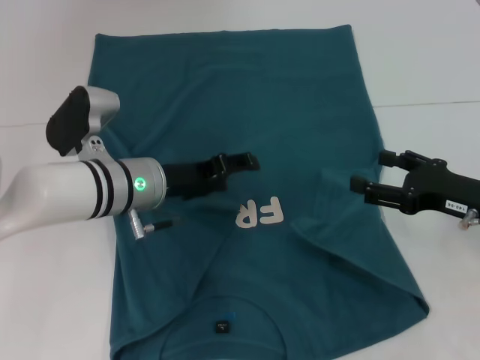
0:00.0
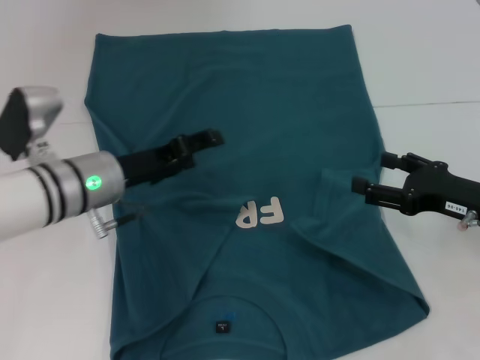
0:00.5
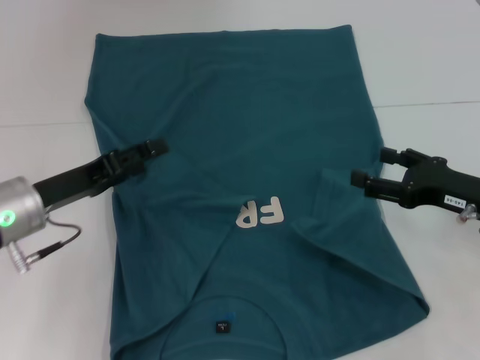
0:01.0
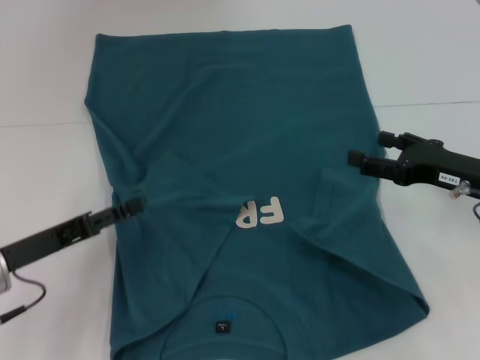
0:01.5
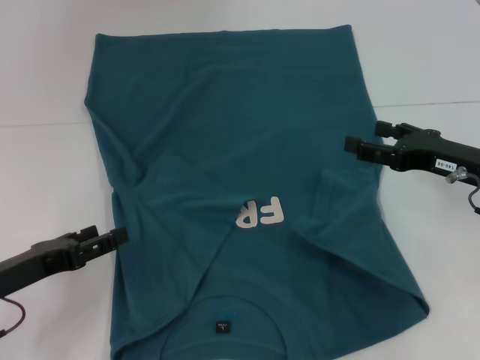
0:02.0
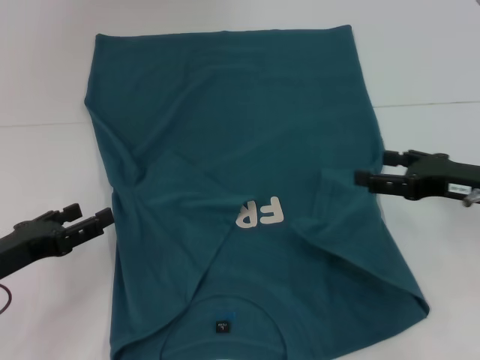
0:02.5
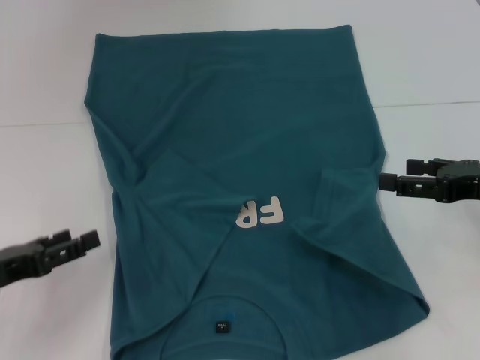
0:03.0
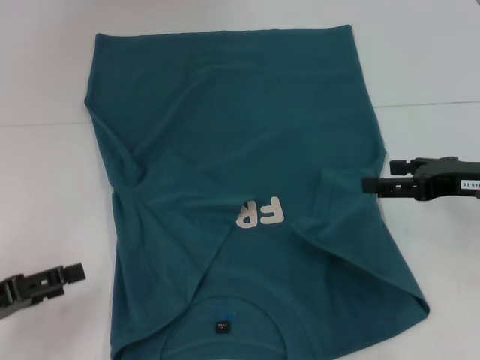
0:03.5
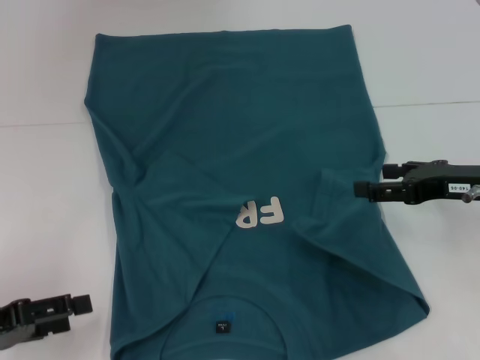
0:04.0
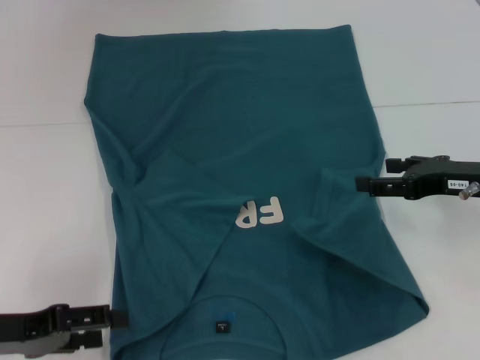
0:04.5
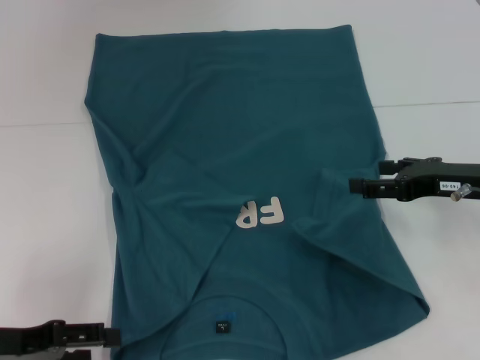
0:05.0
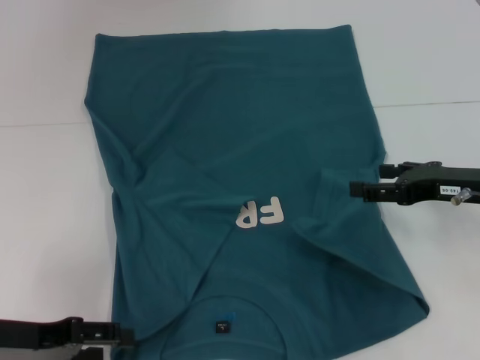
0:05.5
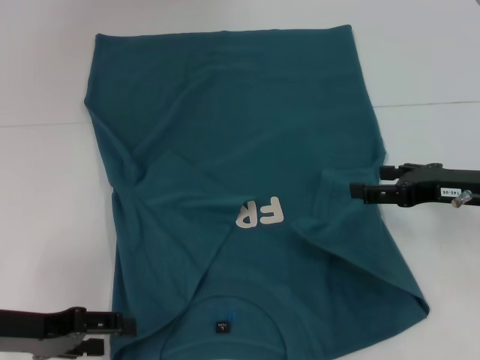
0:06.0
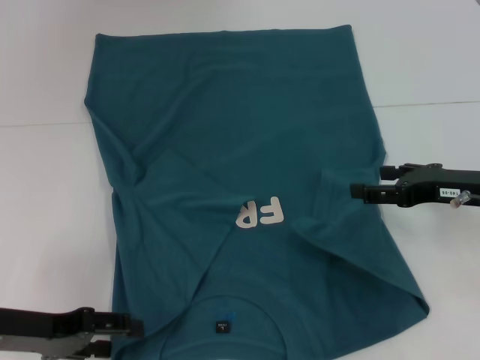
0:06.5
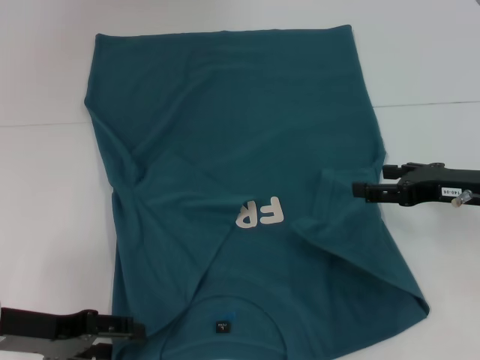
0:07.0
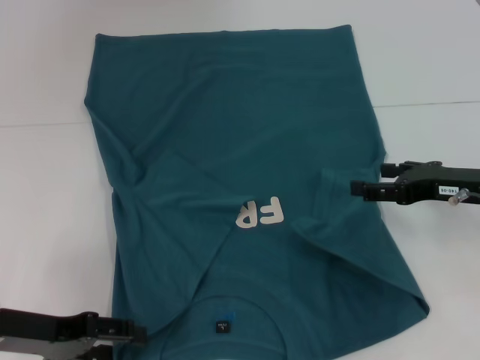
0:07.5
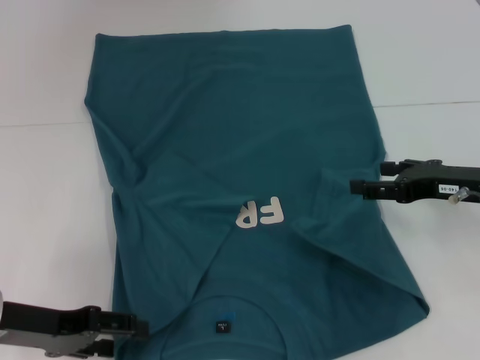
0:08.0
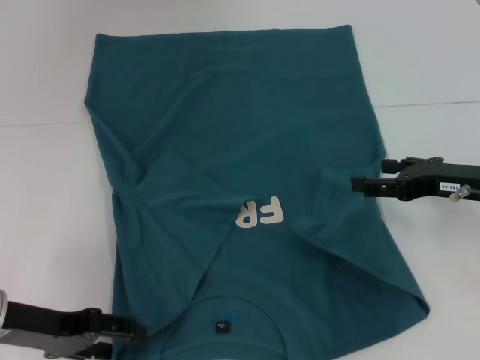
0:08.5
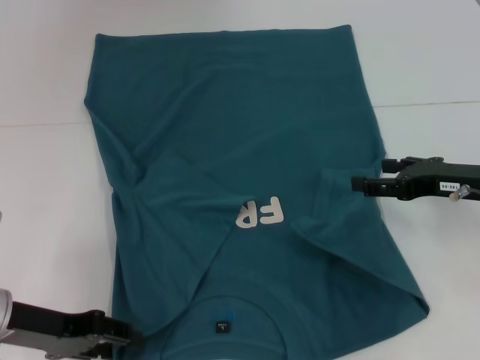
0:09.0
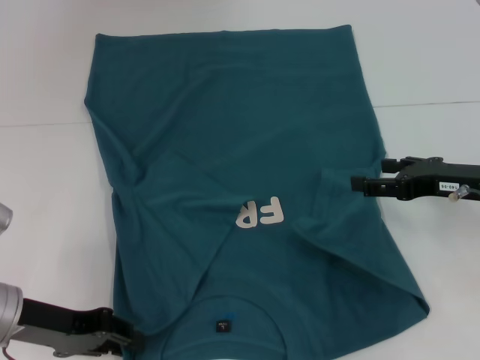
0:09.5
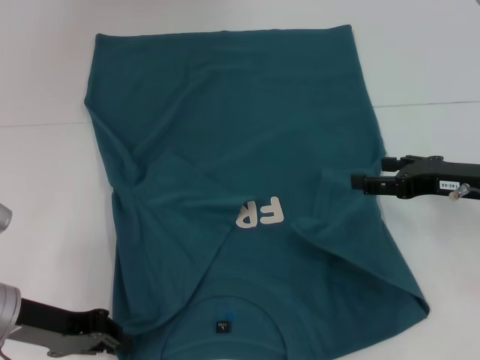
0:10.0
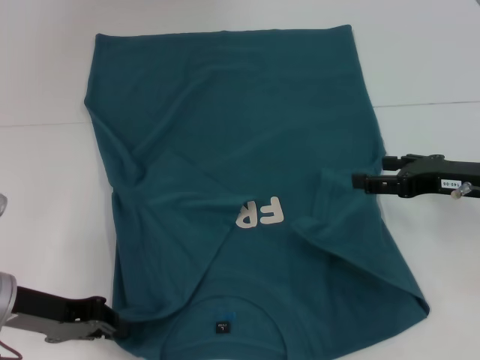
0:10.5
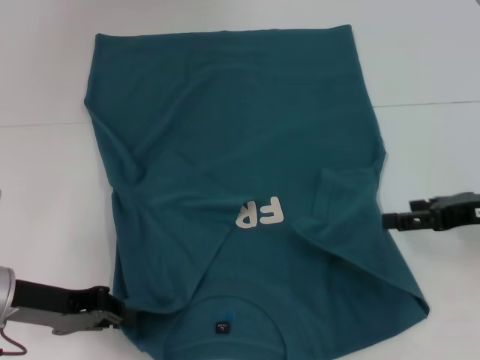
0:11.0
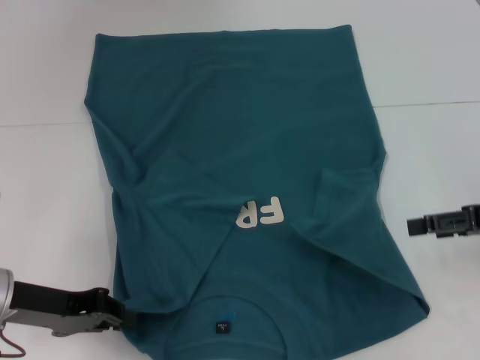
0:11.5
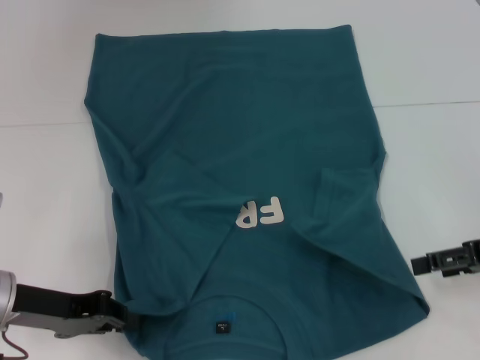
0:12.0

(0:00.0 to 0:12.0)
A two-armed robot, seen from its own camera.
Step, 0:01.0 - 0:10.0: Grab the bottom left corner with your left hand.
0:00.0 - 0:02.0: The left gripper goes approximately 20 cm to the left and backward.
0:02.0 - 0:04.0: The left gripper ends up about 5 cm from where it was.
0:04.0 - 0:06.0: The left gripper is displaced to the right by approximately 5 cm.
0:06.0 - 0:08.0: There are only small adjustments of the grippers.
0:08.0 - 0:10.0: The left gripper closes.
0:10.0 - 0:12.0: The right gripper shifts by some 5 cm.

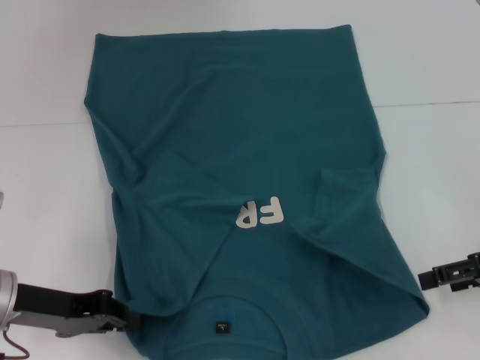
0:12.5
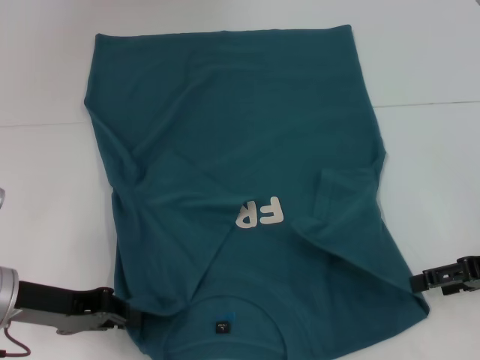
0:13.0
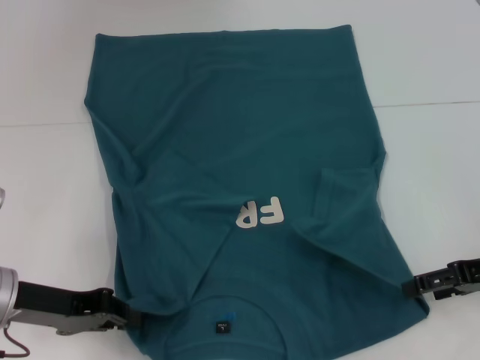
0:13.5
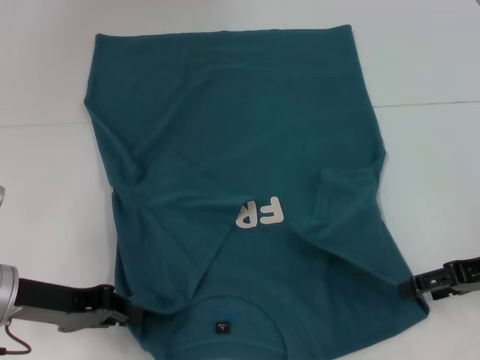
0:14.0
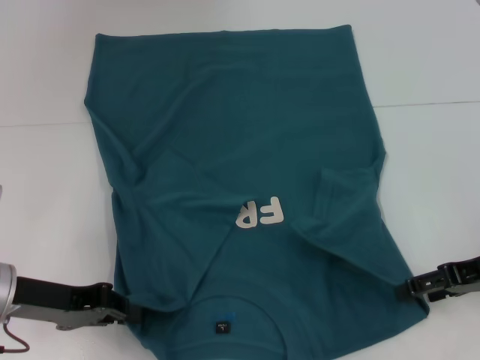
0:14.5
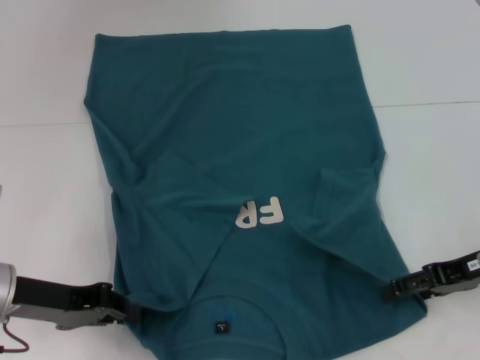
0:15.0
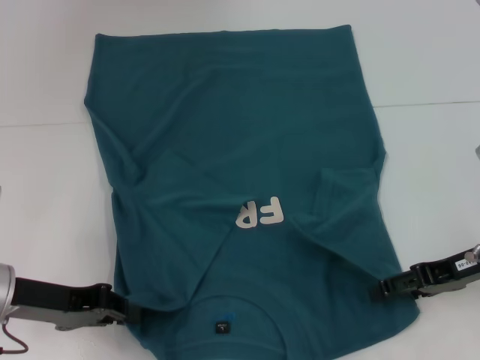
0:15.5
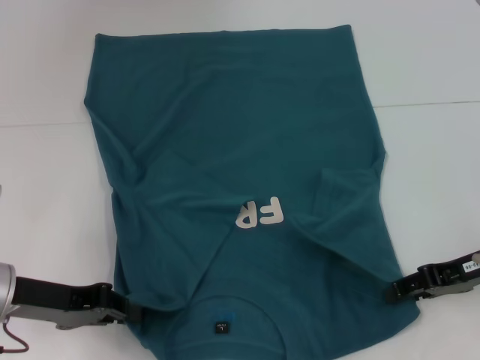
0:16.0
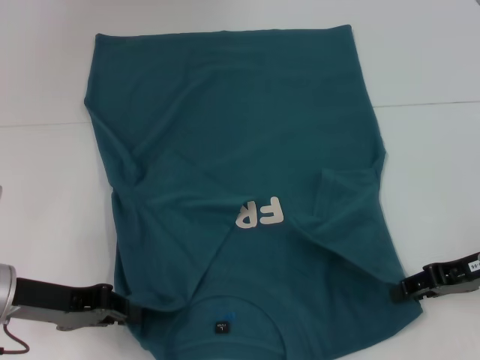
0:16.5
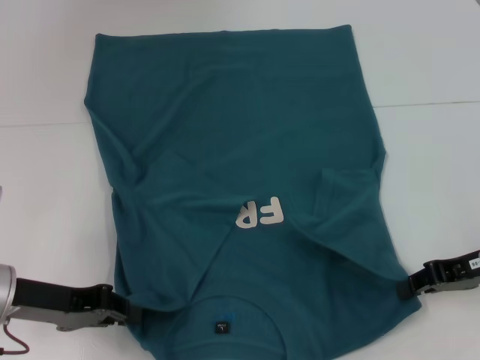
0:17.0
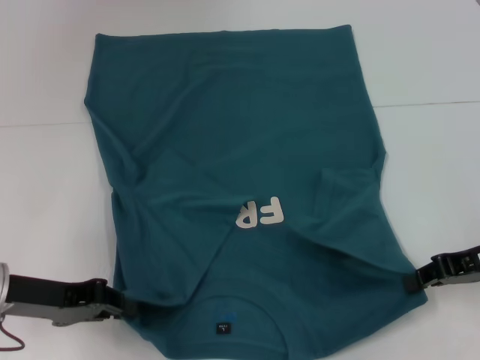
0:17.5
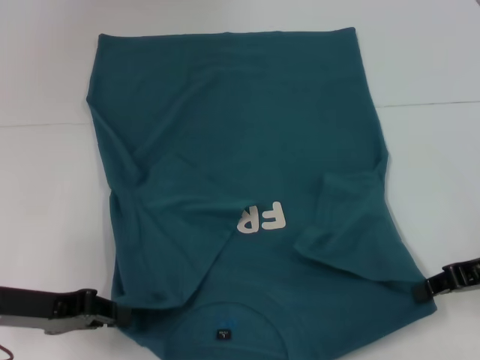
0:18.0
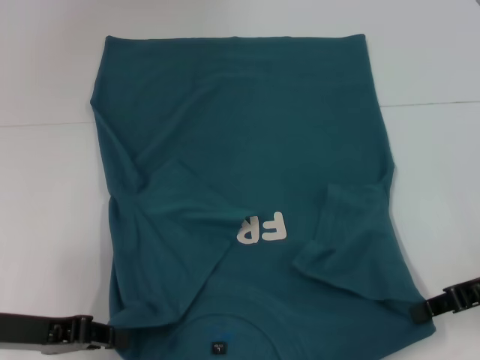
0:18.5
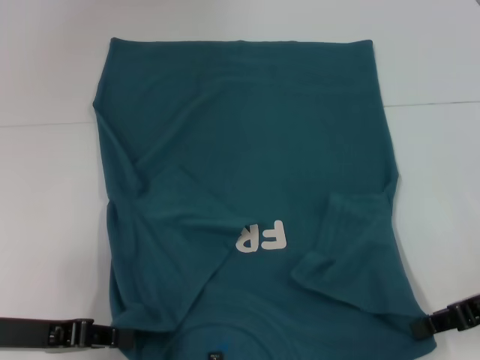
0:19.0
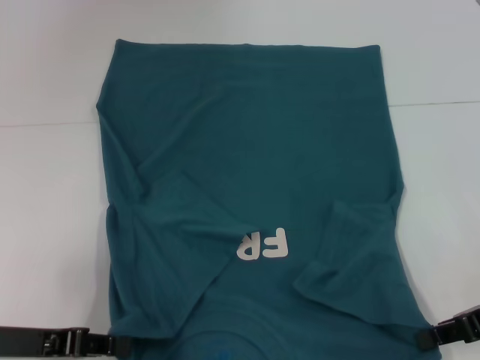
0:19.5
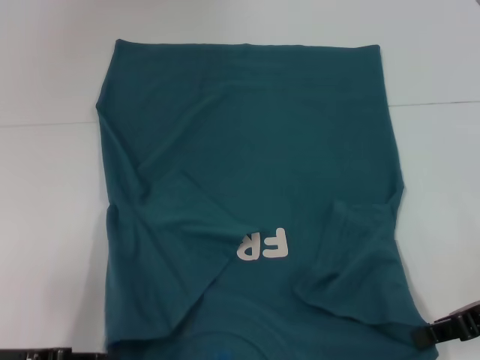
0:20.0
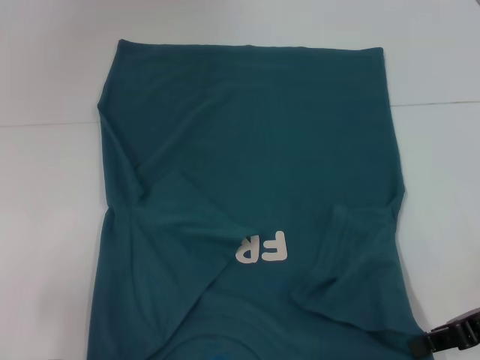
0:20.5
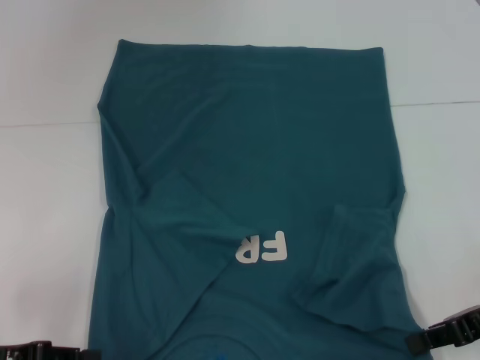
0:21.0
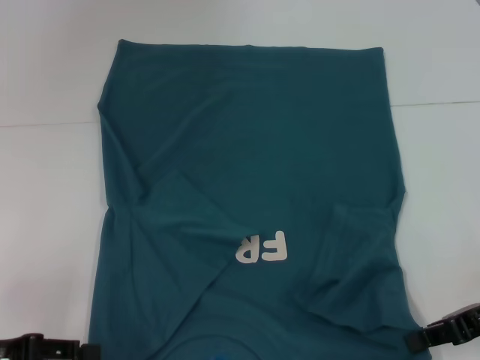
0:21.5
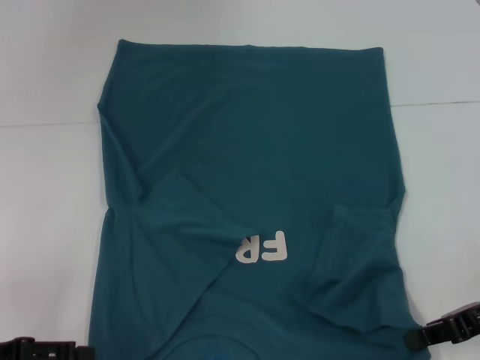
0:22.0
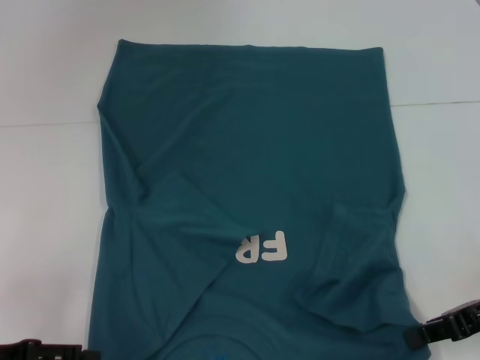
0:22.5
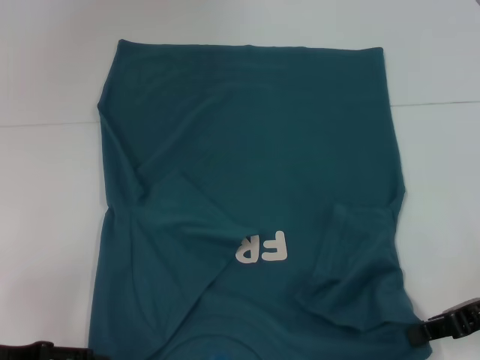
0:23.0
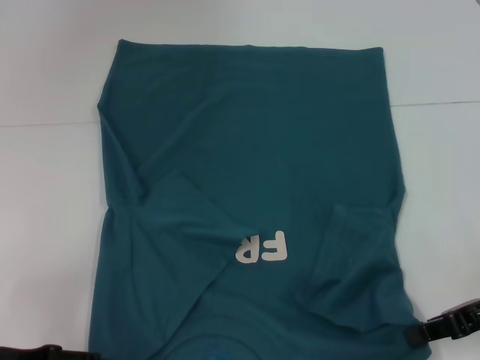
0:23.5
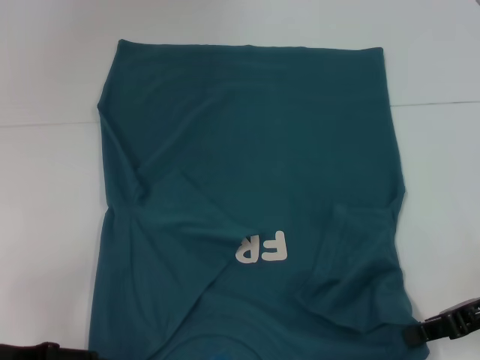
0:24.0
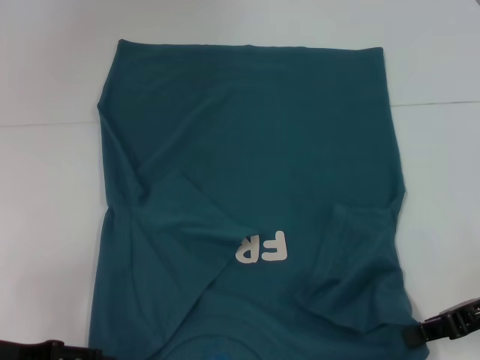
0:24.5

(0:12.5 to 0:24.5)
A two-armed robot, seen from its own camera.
Step, 0:12.5 - 0:17.0: Grab the bottom right corner with your right hand.
0:12.5 - 0:14.5: The grippers move only a little.
0:14.5 - 0:16.5: The right gripper closes up.
0:16.5 - 0:18.5: The right gripper closes.
0:18.5 - 0:20.5: The left gripper shifts by some 5 cm.
0:20.5 - 0:22.5: The left gripper opens its fingers.

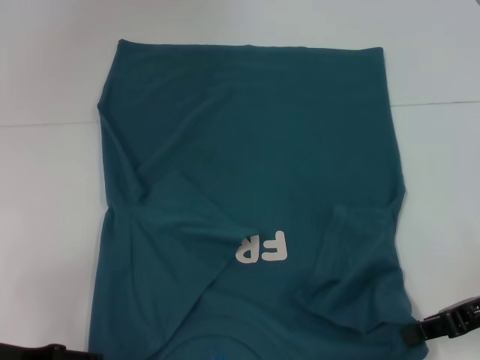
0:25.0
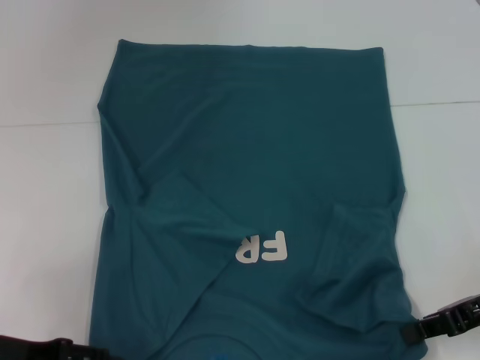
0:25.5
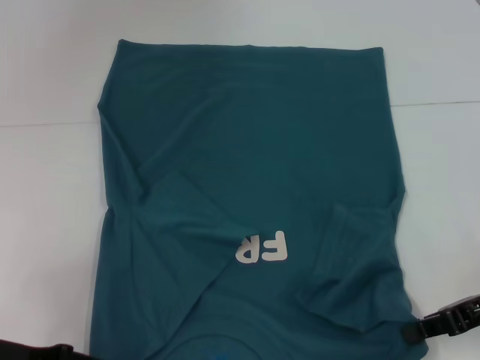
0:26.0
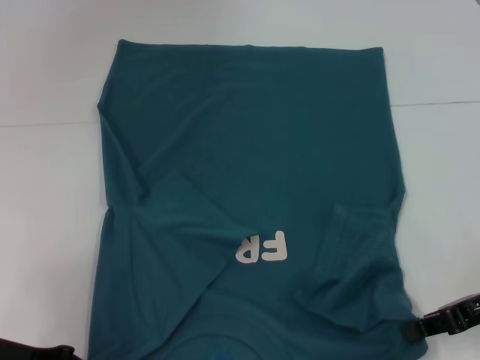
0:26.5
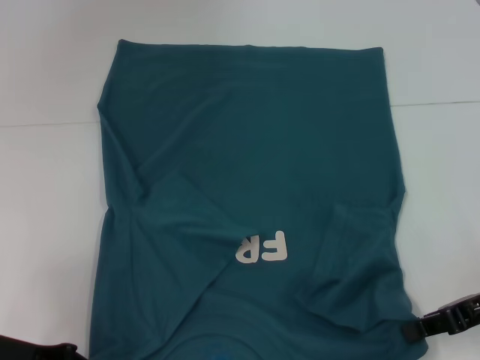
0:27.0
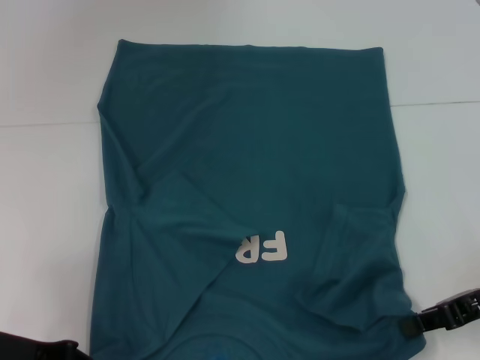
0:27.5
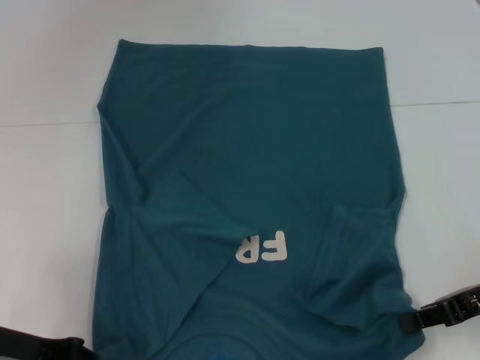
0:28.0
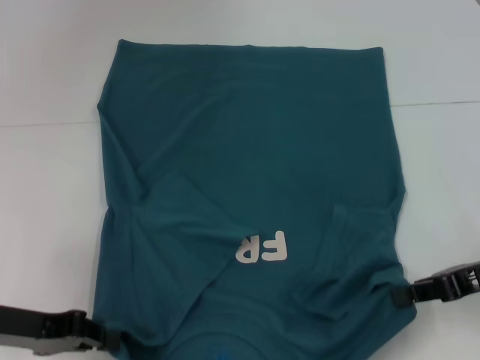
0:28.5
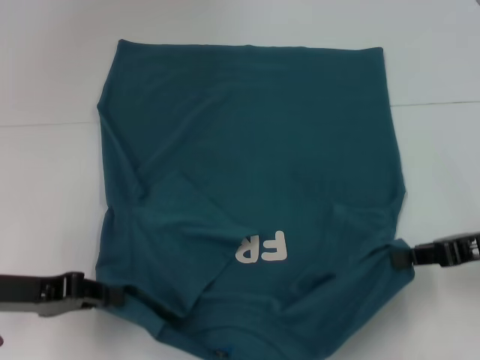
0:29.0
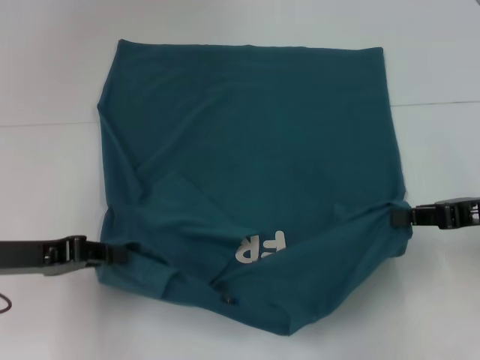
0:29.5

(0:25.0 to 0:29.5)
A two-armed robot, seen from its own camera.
0:27.0 - 0:29.5: The right gripper shifts by roughly 5 cm; the left gripper shifts by approximately 5 cm.
